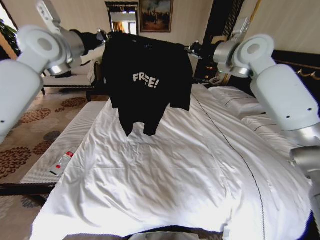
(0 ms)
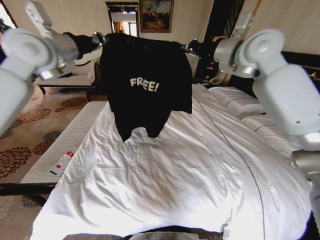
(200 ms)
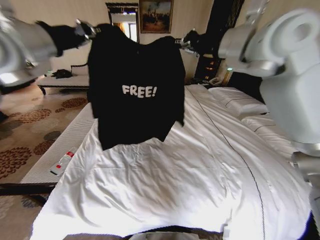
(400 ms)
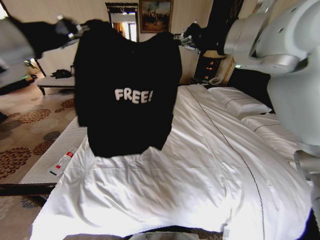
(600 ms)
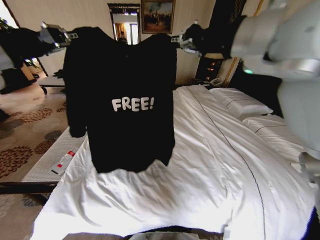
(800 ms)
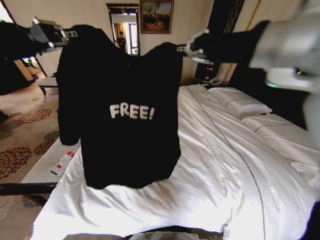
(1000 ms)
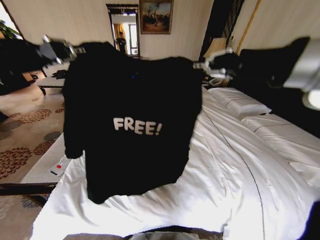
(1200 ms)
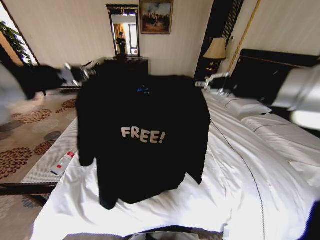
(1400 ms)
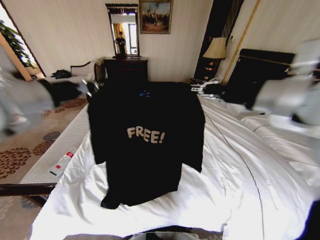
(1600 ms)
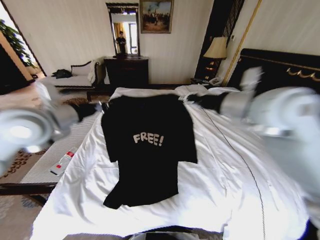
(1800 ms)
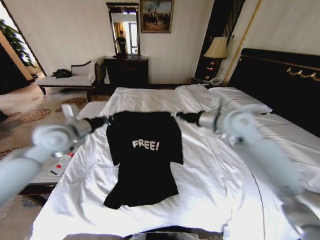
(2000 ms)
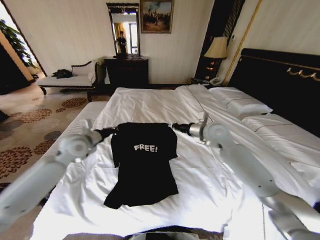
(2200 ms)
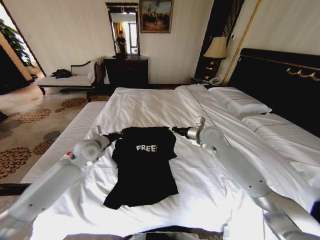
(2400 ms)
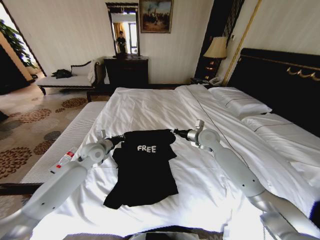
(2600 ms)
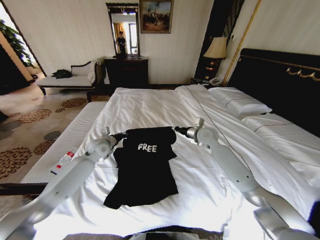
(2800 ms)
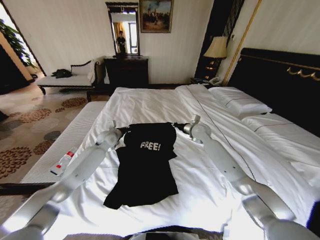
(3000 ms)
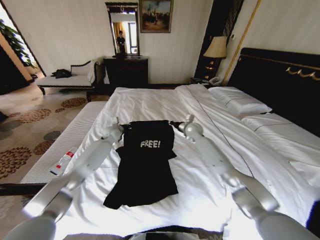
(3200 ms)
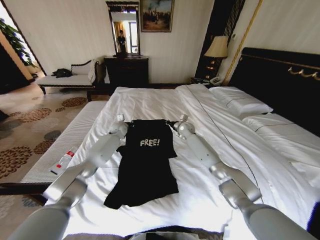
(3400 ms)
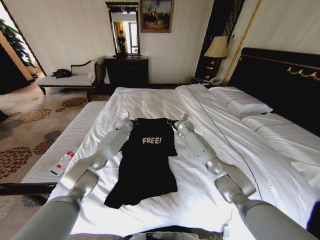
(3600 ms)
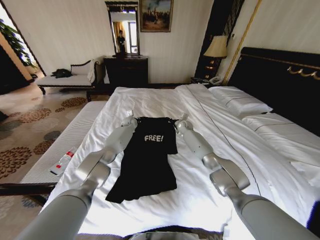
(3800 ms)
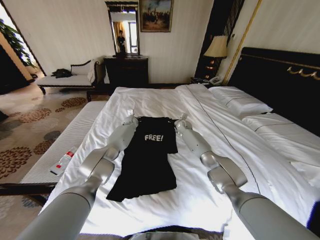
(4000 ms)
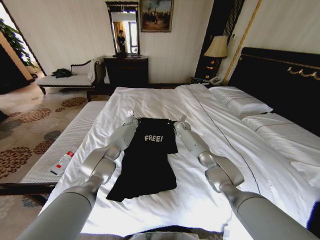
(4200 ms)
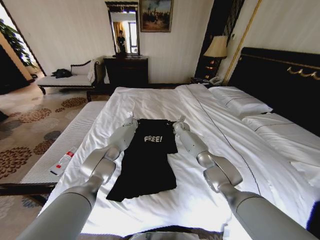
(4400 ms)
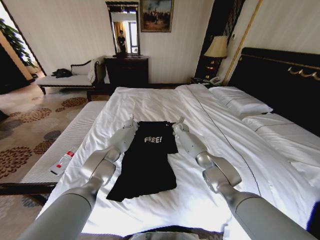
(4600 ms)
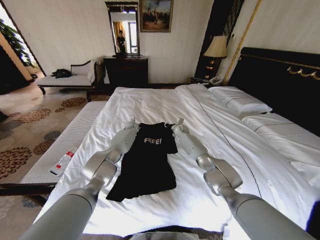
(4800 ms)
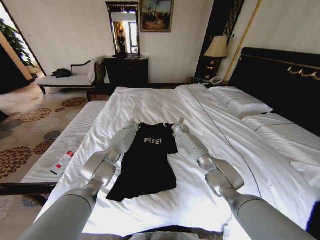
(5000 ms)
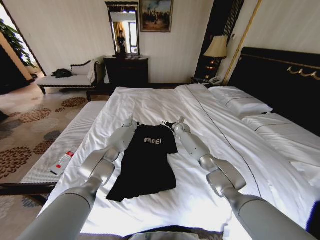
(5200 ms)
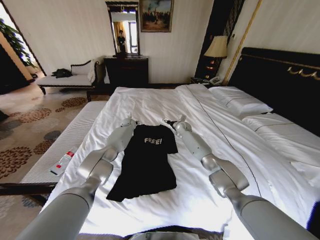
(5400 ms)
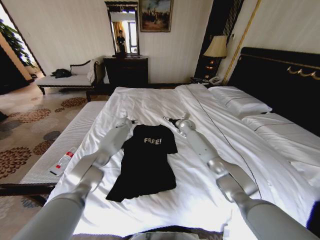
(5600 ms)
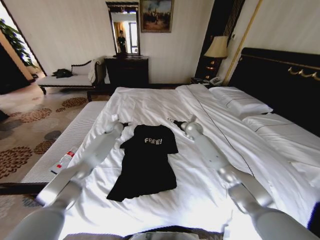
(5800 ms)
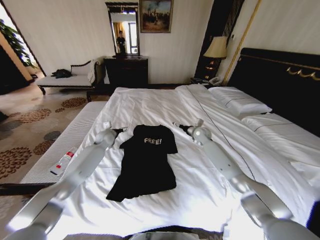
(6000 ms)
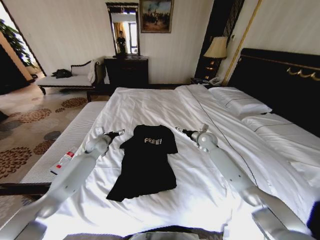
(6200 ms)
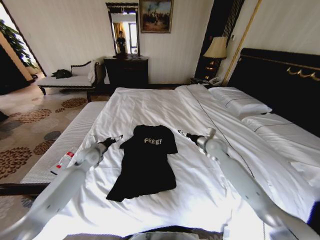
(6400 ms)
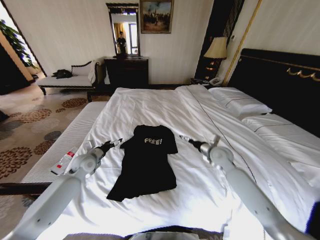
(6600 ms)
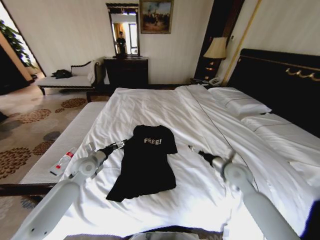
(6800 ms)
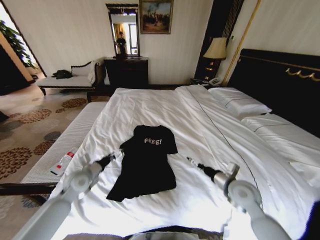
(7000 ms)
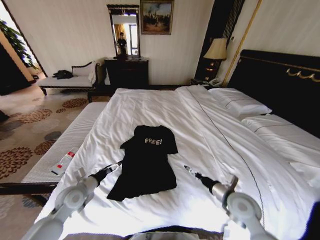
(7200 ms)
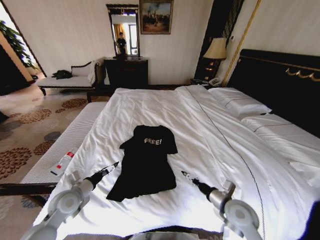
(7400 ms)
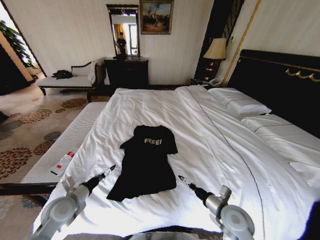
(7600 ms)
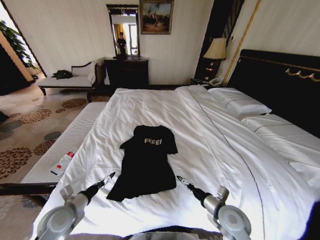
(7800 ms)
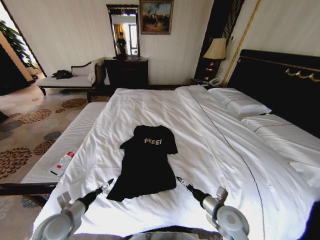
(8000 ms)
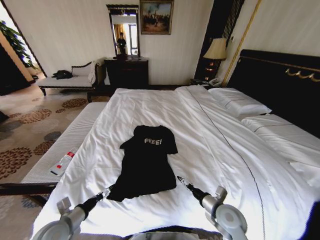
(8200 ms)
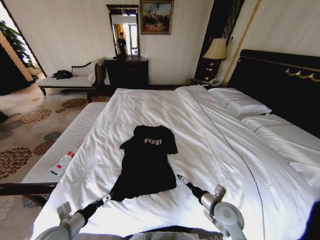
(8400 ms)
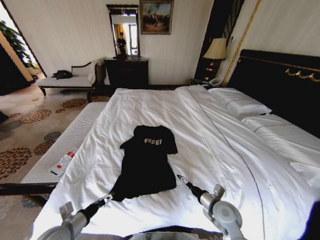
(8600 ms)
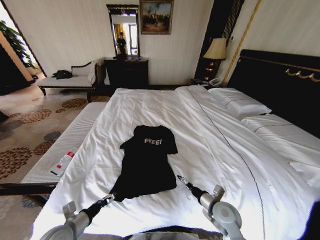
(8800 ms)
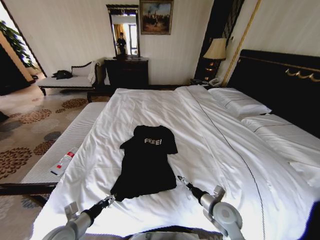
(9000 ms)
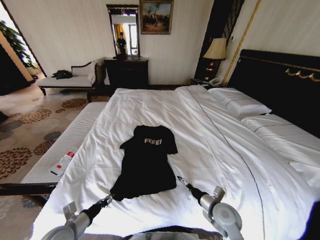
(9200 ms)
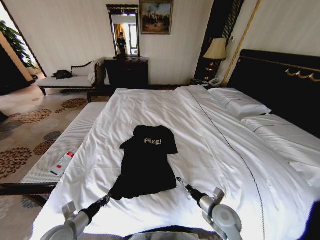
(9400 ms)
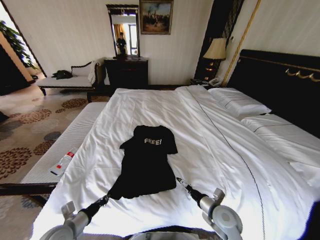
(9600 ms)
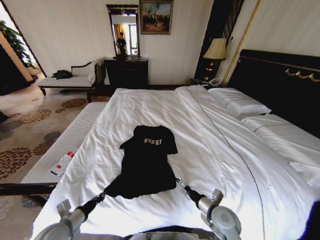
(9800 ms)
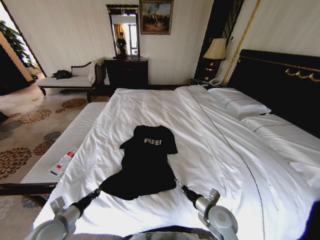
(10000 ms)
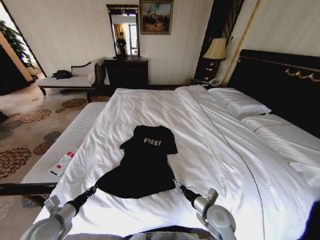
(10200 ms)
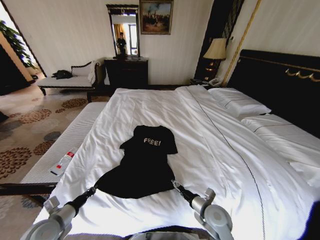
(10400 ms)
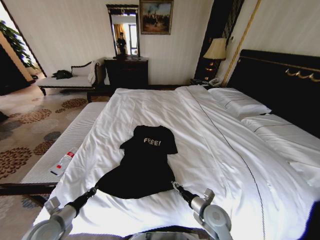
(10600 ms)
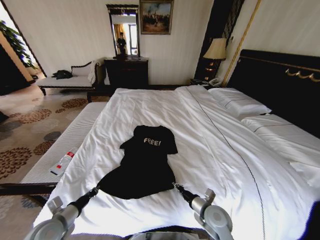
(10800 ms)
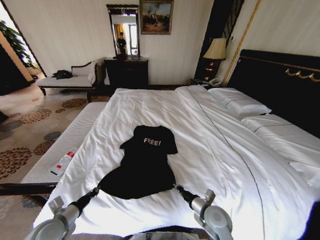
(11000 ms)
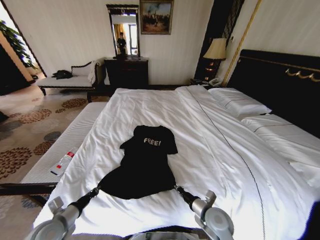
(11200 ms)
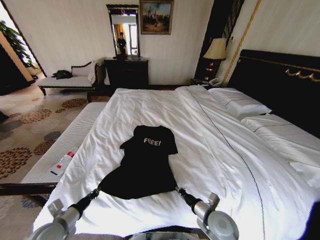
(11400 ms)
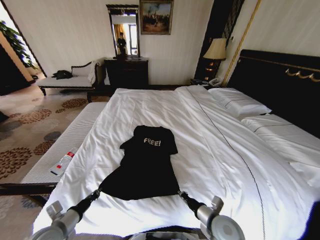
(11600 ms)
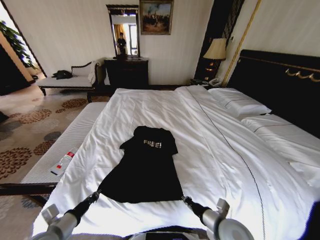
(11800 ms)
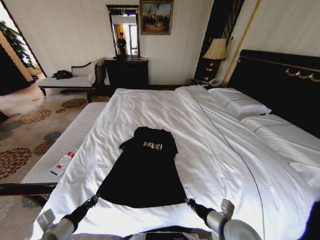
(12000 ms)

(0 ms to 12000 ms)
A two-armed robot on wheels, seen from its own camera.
Task of the whole recording: Fold the clothes on the bed.
0 ms - 1600 ms: The grippers both shift backward by roughly 25 cm.
1600 ms - 3000 ms: The two grippers go about 40 cm downward and forward.
3000 ms - 4400 ms: The right gripper is displaced forward and downward by roughly 15 cm; the left gripper goes about 20 cm forward and to the right.
4400 ms - 6000 ms: The right gripper travels backward and to the right by about 15 cm, and opens up. Meanwhile the left gripper moves backward and to the left, approximately 20 cm, and opens its fingers.
6000 ms - 7600 ms: Both grippers move backward, roughly 35 cm.
7600 ms - 9000 ms: The left gripper is displaced backward by roughly 10 cm.
9000 ms - 10400 ms: The left gripper shifts about 5 cm to the left, and closes up.
10400 ms - 12000 ms: The left gripper moves about 5 cm, while the right gripper moves upward and backward, about 10 cm, and closes up.

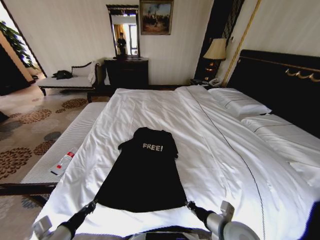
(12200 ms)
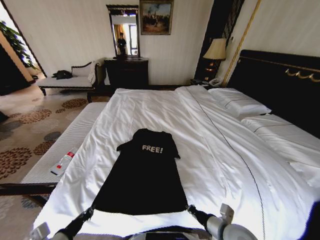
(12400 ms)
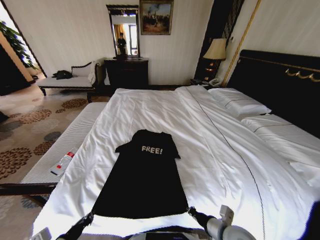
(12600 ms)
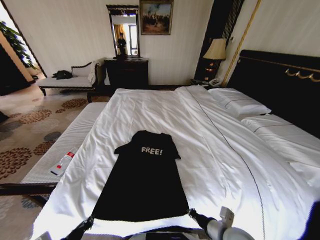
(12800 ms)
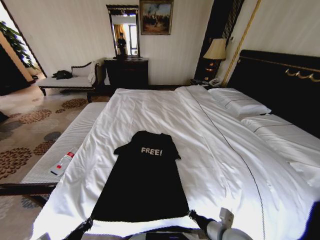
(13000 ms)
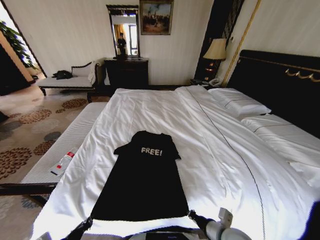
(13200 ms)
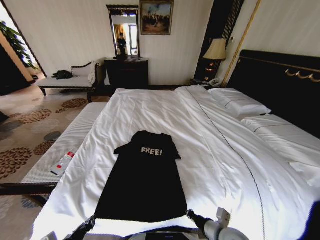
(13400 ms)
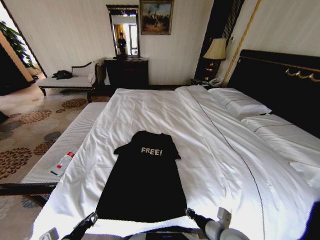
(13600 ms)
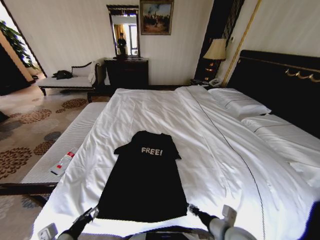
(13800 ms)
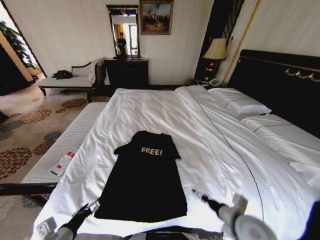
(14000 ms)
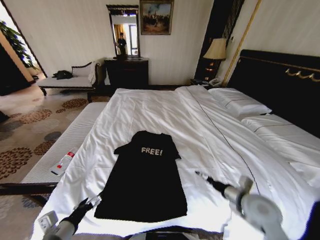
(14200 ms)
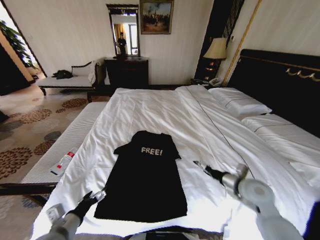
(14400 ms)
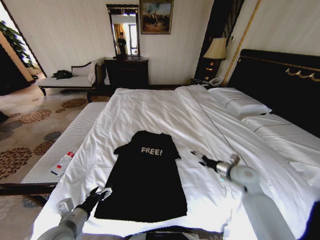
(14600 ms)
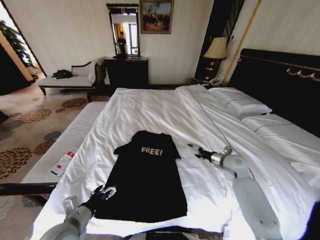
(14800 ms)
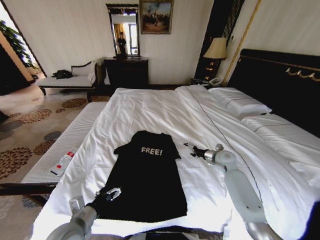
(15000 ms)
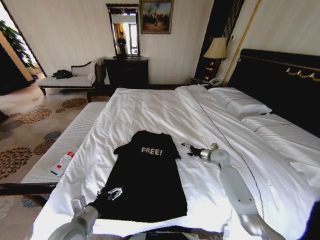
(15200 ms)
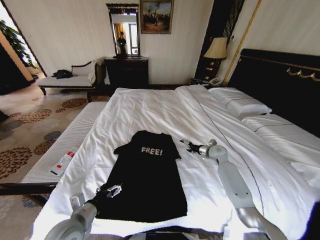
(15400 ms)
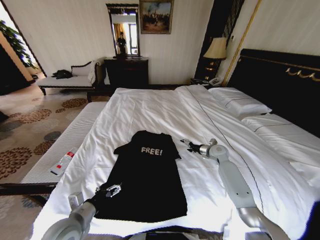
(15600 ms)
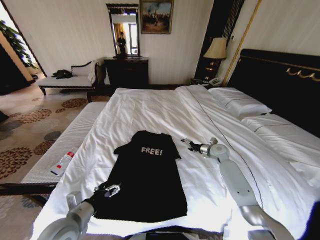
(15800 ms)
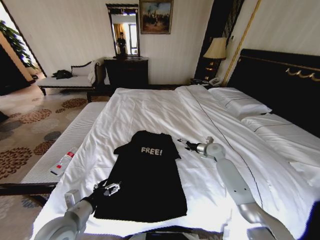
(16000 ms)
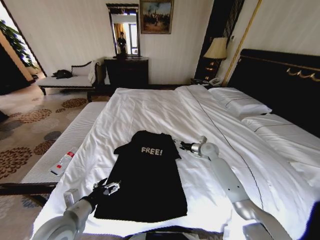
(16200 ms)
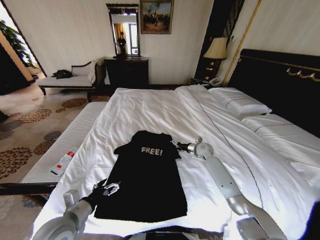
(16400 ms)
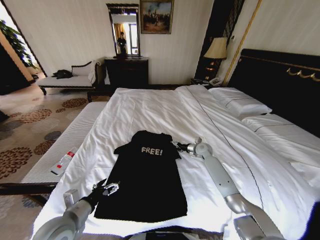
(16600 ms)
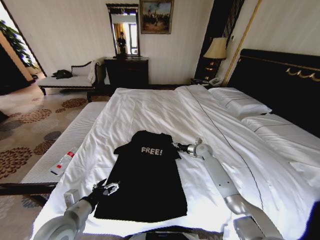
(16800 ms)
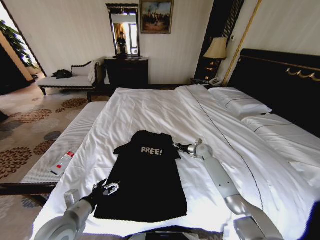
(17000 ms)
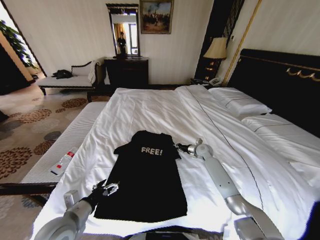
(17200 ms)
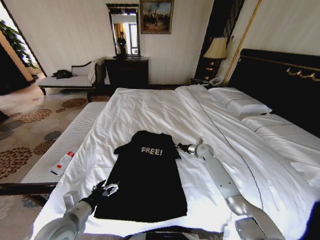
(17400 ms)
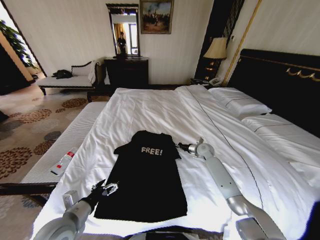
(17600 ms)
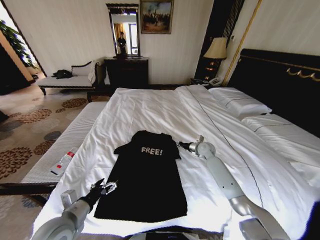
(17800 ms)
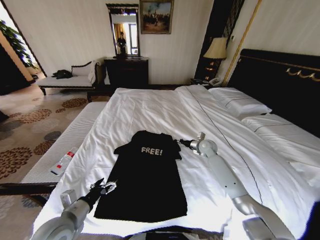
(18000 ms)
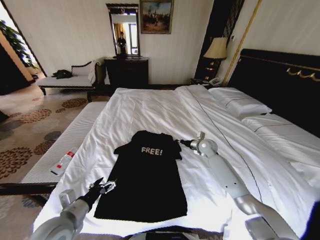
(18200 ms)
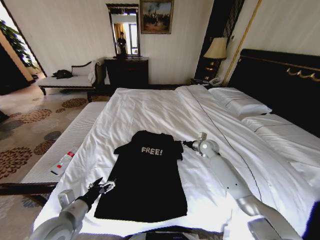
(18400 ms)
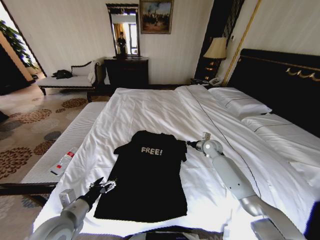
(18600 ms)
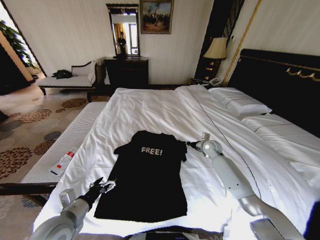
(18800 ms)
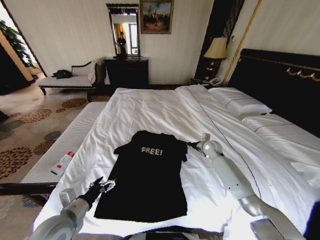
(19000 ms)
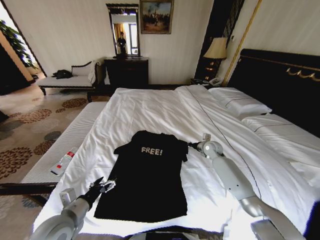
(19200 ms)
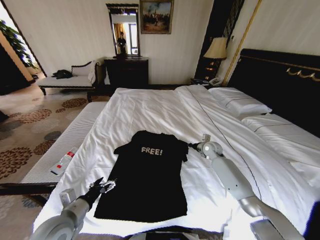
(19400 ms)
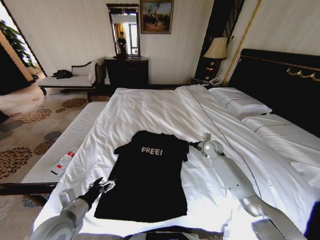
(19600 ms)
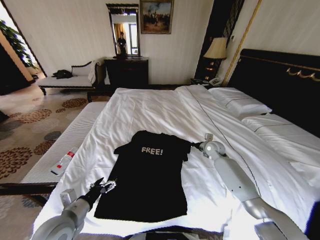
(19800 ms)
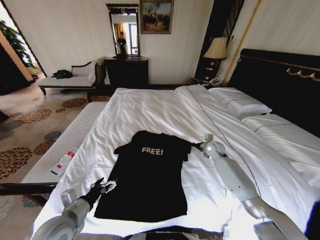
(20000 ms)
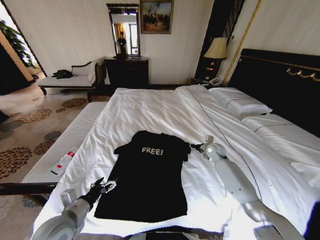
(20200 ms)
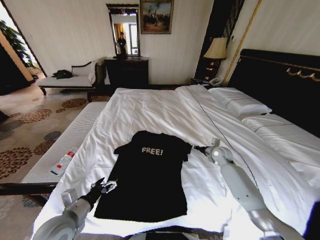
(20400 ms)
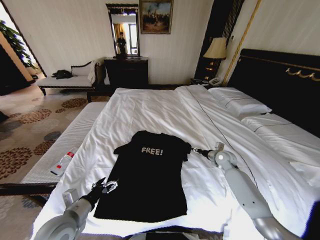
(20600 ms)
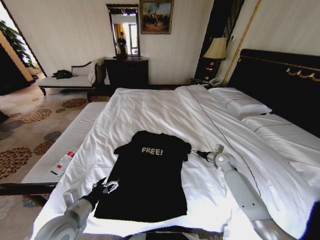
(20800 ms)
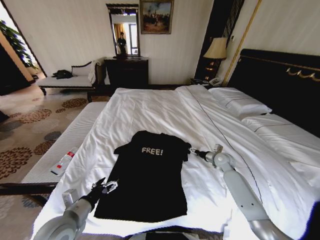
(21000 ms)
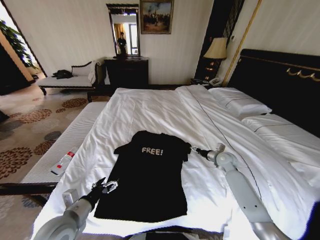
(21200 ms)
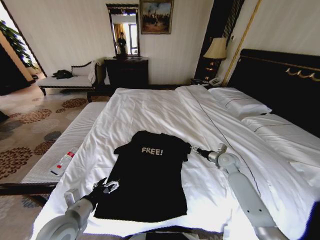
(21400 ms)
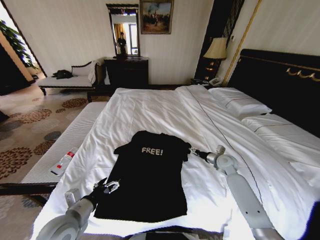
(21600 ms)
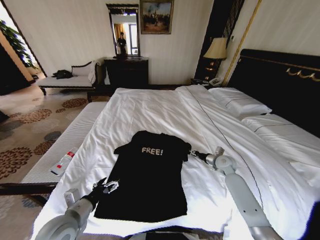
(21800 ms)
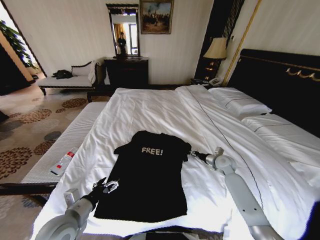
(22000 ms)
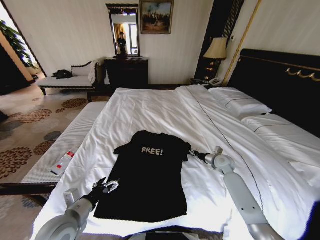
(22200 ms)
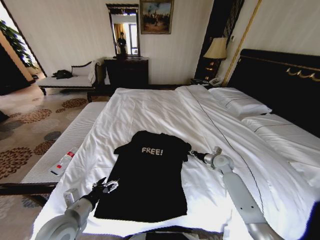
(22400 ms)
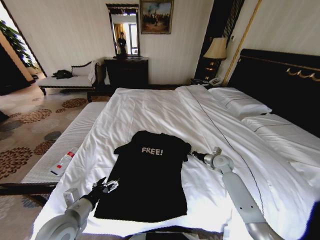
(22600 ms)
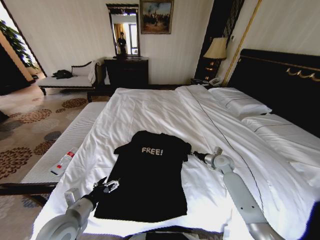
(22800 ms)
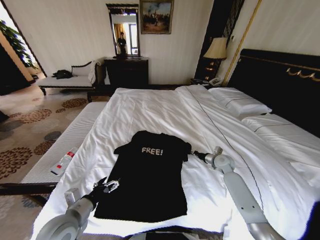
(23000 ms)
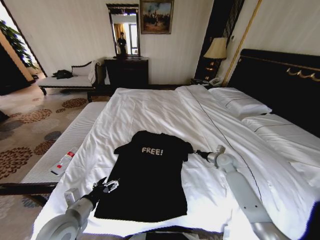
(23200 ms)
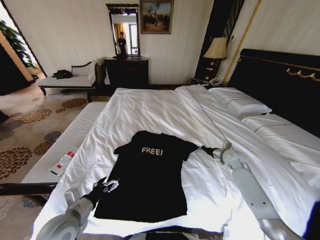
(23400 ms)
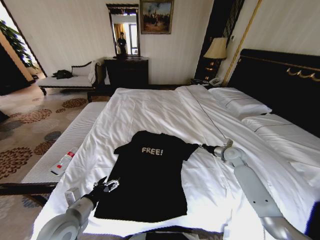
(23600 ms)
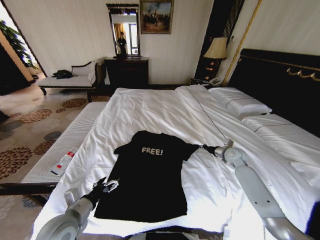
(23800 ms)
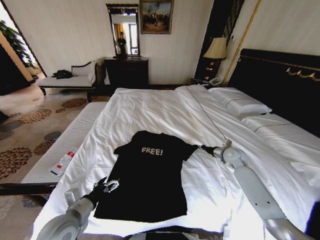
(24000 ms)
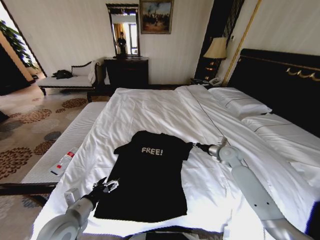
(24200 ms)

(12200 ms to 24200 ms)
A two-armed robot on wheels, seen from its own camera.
Task of the whole recording: Fold the clothes on the bed.
12200 ms - 13800 ms: The right gripper opens. The left gripper opens.
13800 ms - 15200 ms: The left gripper shifts about 10 cm forward and to the right, and opens; the right gripper heads forward, covering roughly 35 cm, and opens up.
15200 ms - 16600 ms: The right gripper is displaced forward and to the left by some 10 cm.
16600 ms - 18200 ms: The right gripper moves roughly 5 cm, and closes.
18200 ms - 19800 ms: There are only small adjustments of the grippers.
19800 ms - 21200 ms: The right gripper heads backward, covering some 5 cm, and opens up.
21200 ms - 22600 ms: The right gripper closes up.
22600 ms - 24200 ms: The right gripper is displaced upward by about 10 cm.
